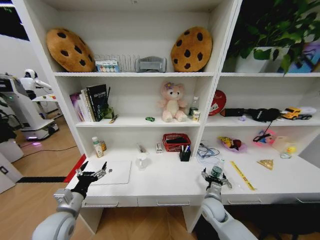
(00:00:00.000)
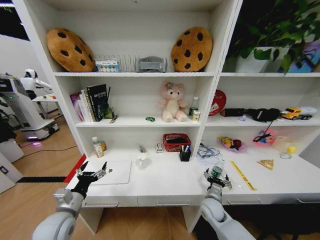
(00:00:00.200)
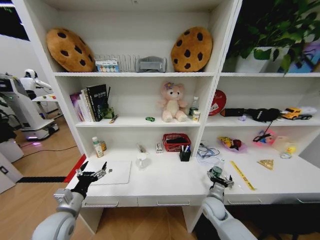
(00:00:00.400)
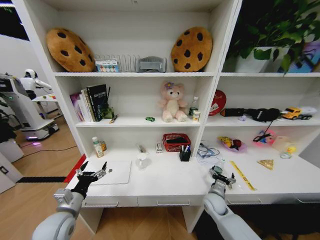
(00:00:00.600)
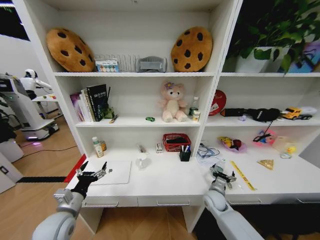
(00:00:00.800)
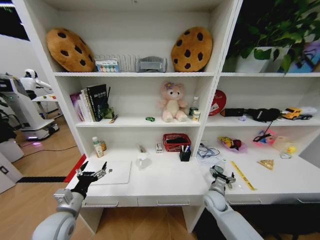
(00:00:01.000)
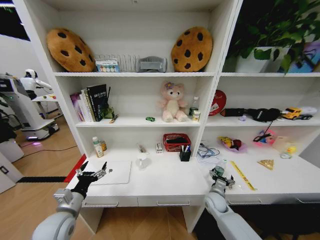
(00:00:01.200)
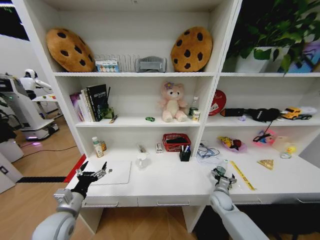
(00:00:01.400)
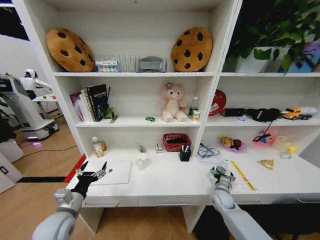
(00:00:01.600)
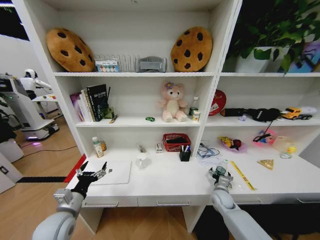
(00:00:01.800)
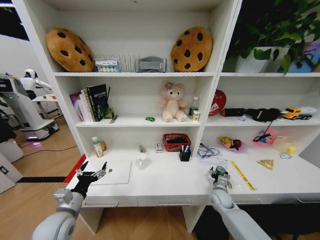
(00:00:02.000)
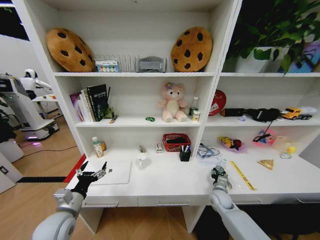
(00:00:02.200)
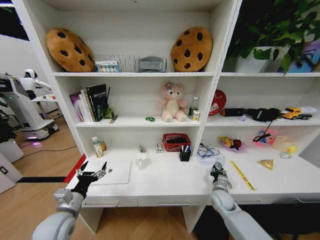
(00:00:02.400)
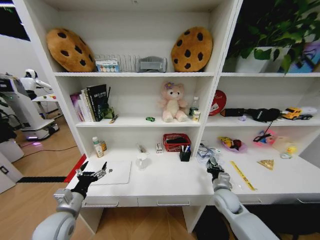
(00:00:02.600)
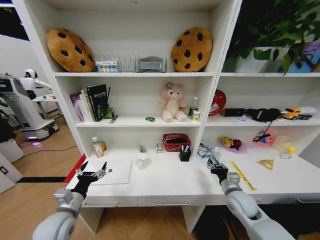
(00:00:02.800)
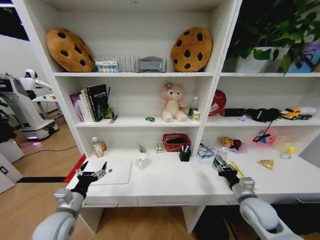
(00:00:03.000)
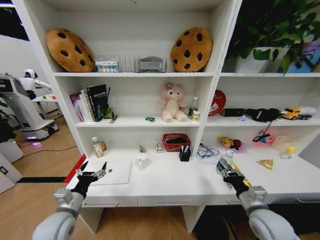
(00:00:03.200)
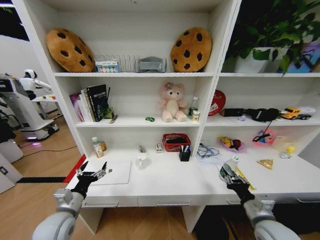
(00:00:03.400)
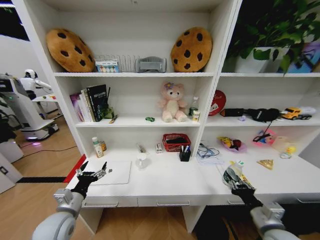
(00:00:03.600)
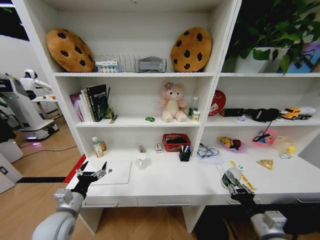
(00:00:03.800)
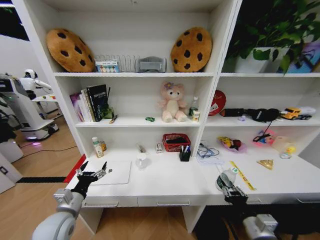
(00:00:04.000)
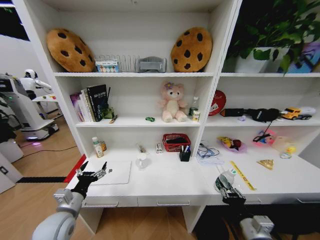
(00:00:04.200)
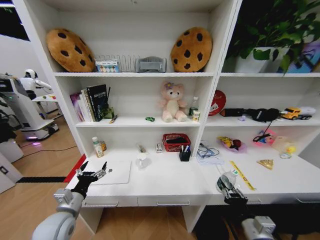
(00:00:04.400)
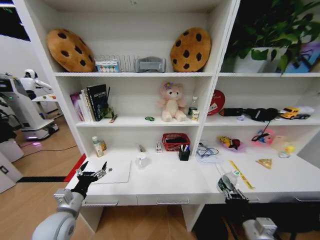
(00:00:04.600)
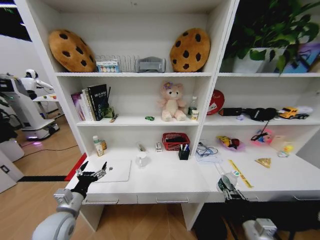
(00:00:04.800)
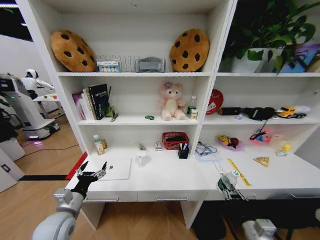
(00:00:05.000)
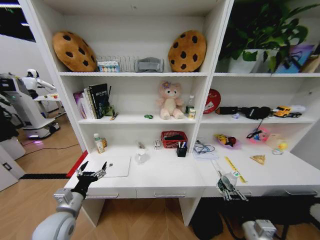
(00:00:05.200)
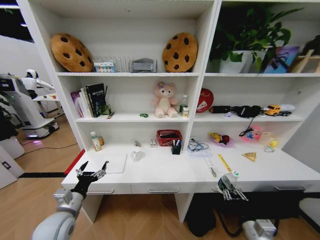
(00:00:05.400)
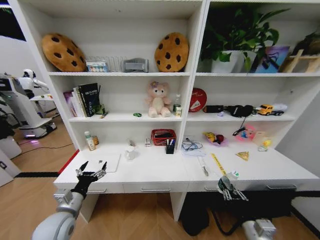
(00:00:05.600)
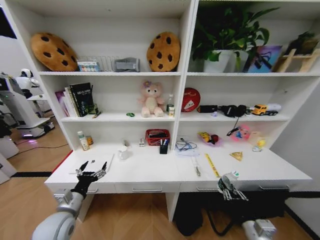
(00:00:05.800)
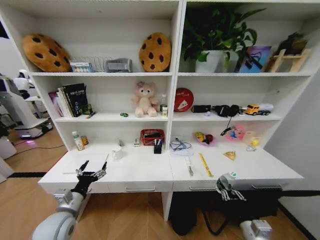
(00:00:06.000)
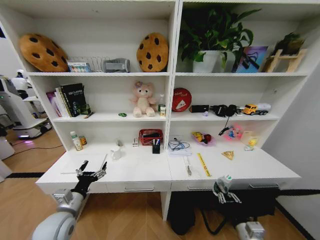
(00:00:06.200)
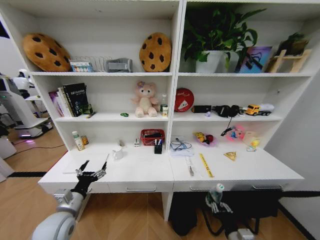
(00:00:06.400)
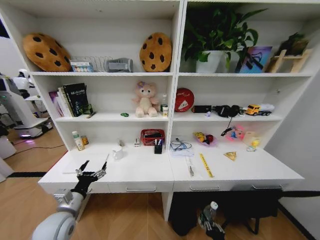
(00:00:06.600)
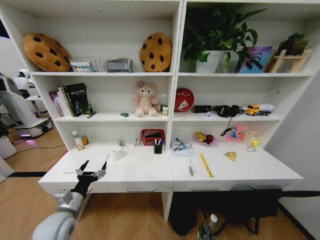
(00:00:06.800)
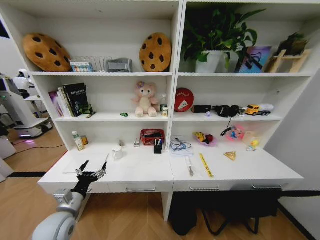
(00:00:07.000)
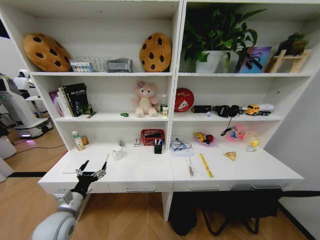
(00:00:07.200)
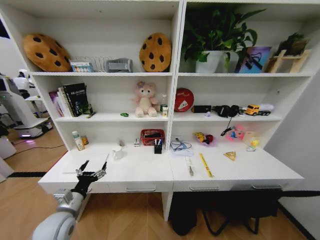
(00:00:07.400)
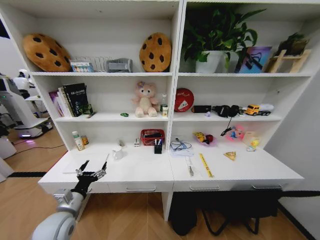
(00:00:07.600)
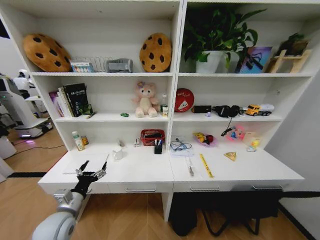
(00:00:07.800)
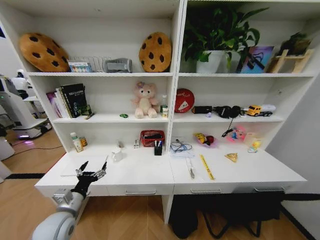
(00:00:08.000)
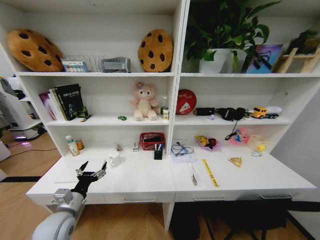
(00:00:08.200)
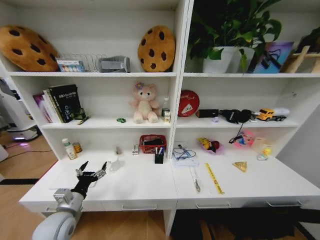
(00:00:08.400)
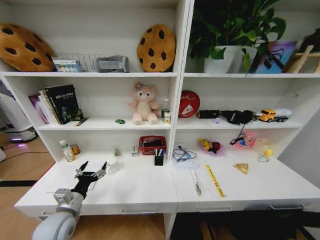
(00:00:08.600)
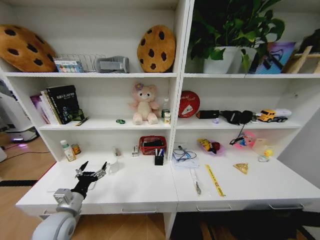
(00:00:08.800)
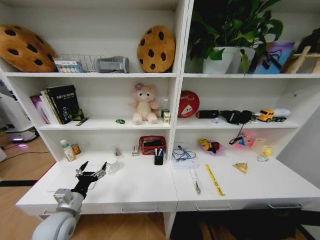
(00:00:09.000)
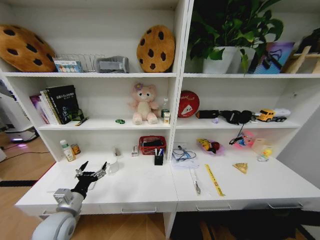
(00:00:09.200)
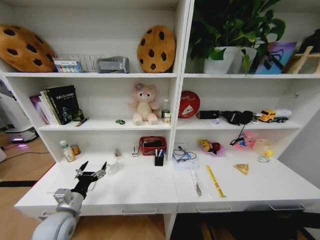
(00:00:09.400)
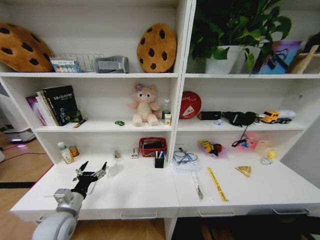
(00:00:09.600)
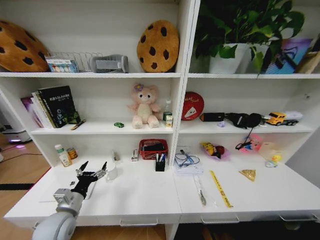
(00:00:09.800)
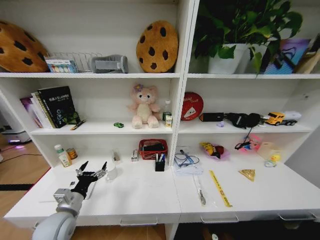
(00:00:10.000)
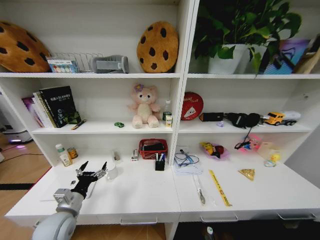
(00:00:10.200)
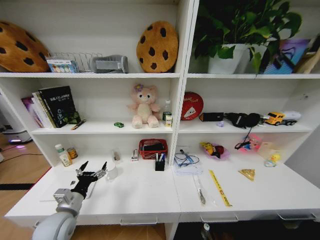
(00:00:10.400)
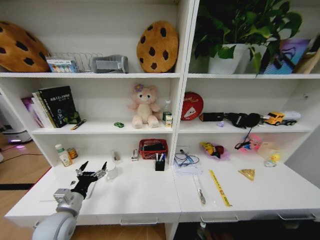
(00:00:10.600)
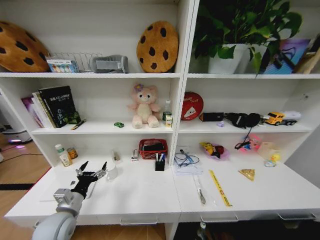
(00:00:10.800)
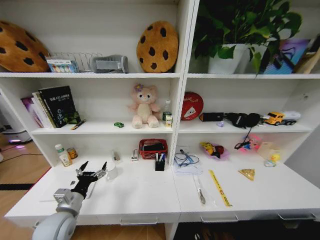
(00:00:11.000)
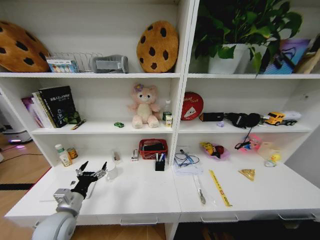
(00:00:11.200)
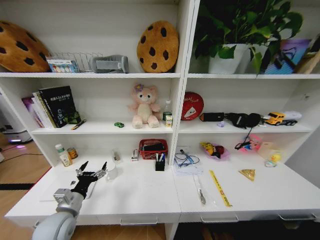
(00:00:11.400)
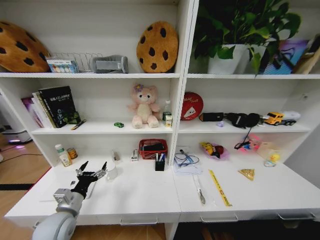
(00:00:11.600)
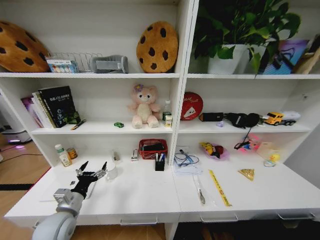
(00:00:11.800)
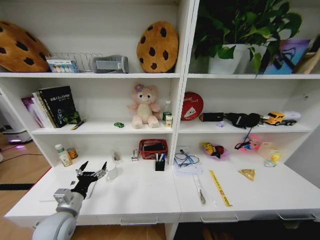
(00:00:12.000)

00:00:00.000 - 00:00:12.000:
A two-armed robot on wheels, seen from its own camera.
Task of the whole recording: Organize the objects on the table.
00:00:00.000 - 00:00:01.600: The right gripper moves to the right and forward, some 10 cm.
00:00:01.600 - 00:00:03.000: The right gripper is displaced upward and backward by roughly 15 cm, and closes its fingers.
00:00:03.000 - 00:00:04.400: The right gripper goes approximately 15 cm backward.
00:00:06.000 - 00:00:07.600: The right gripper moves downward and backward, roughly 30 cm.
00:00:09.000 - 00:00:10.400: The right gripper shifts some 10 cm forward and downward.

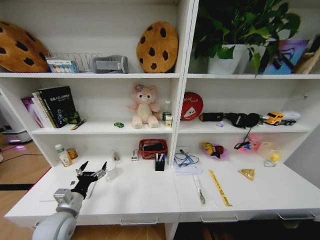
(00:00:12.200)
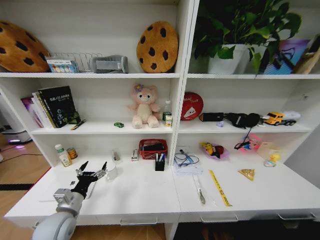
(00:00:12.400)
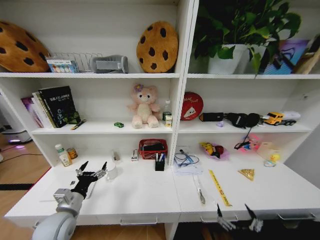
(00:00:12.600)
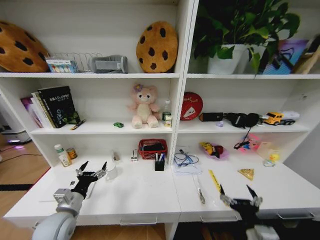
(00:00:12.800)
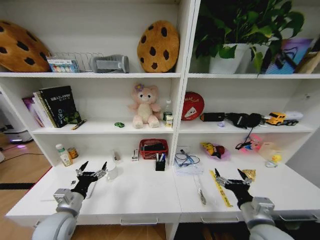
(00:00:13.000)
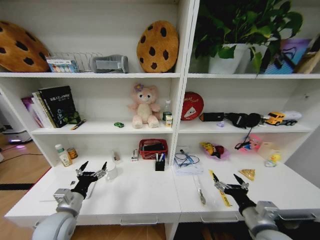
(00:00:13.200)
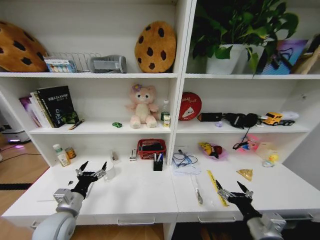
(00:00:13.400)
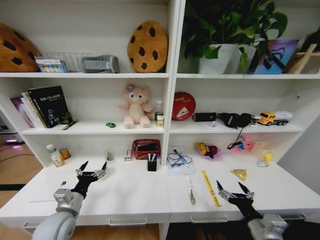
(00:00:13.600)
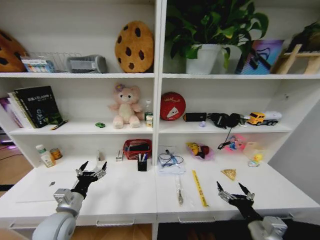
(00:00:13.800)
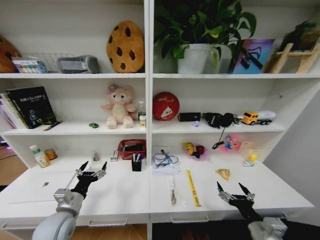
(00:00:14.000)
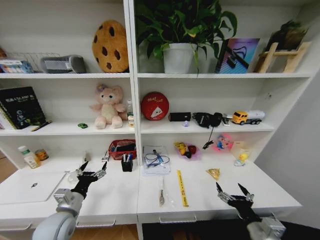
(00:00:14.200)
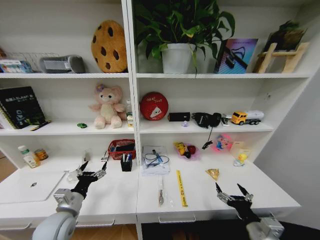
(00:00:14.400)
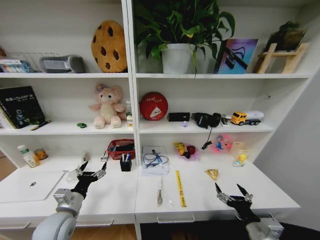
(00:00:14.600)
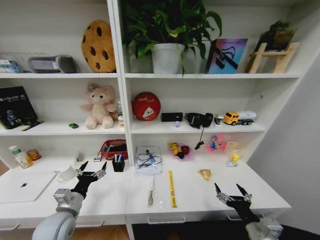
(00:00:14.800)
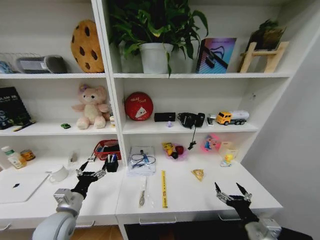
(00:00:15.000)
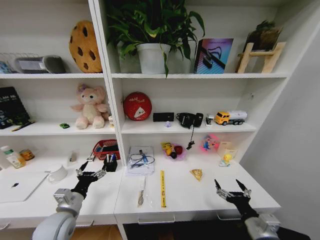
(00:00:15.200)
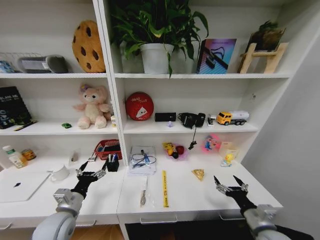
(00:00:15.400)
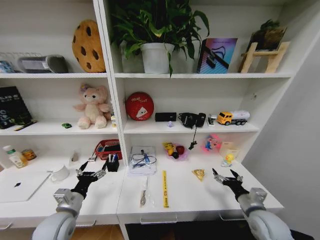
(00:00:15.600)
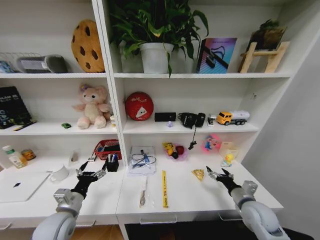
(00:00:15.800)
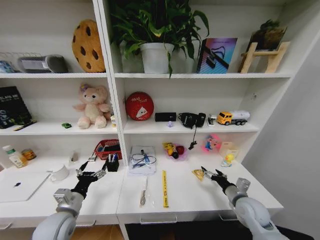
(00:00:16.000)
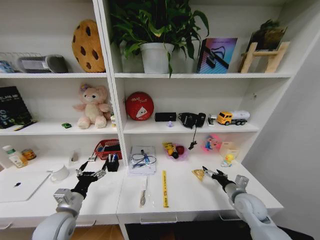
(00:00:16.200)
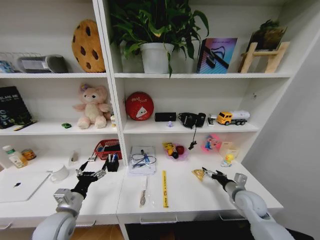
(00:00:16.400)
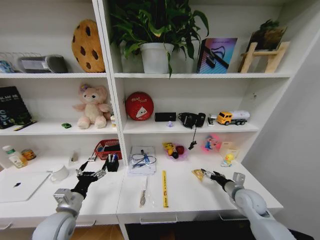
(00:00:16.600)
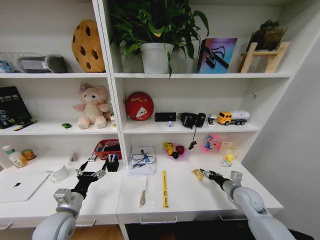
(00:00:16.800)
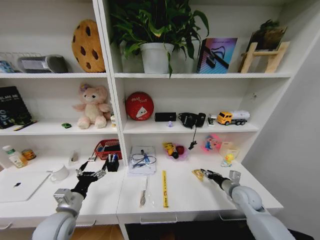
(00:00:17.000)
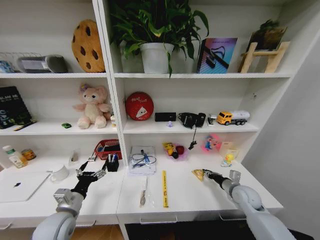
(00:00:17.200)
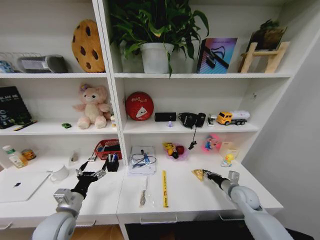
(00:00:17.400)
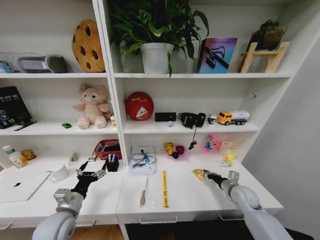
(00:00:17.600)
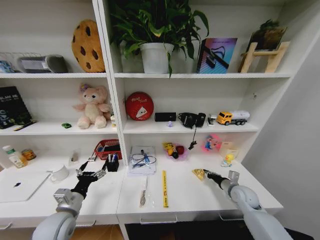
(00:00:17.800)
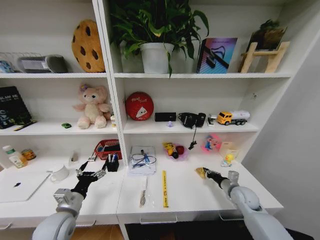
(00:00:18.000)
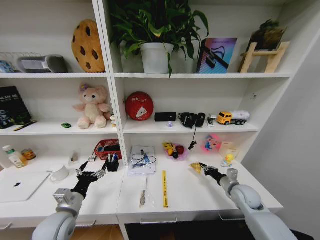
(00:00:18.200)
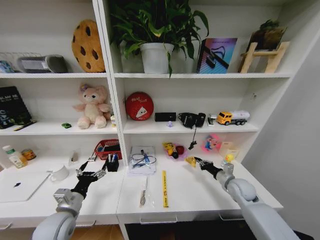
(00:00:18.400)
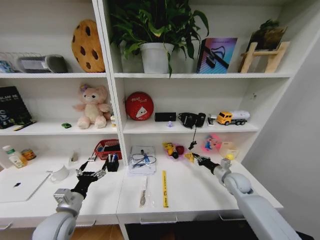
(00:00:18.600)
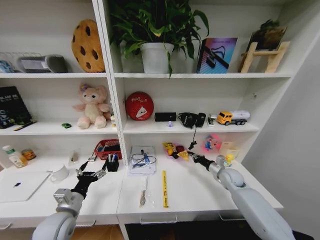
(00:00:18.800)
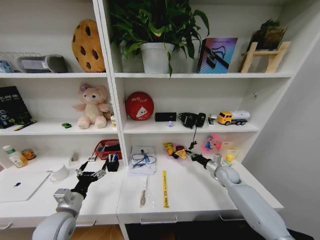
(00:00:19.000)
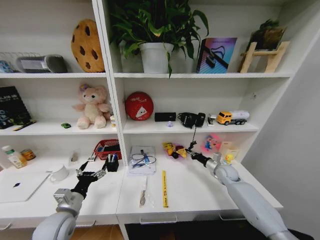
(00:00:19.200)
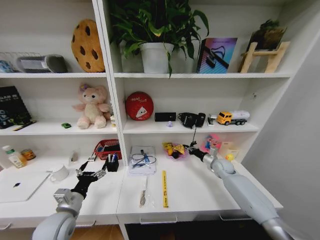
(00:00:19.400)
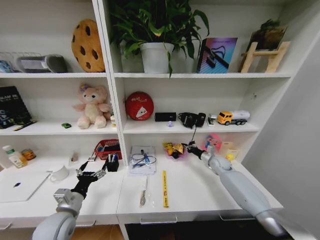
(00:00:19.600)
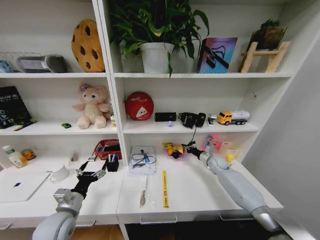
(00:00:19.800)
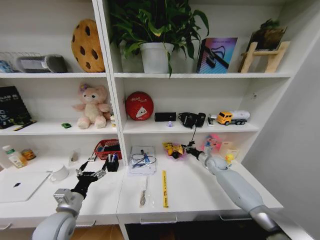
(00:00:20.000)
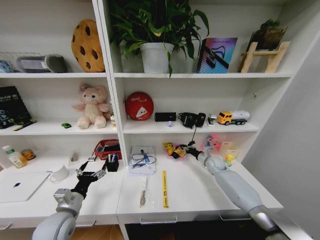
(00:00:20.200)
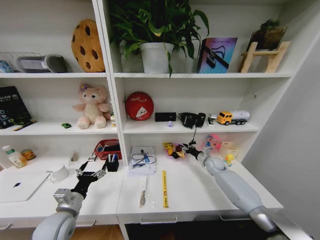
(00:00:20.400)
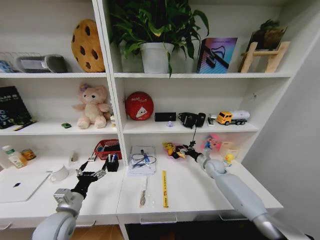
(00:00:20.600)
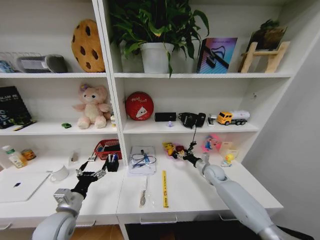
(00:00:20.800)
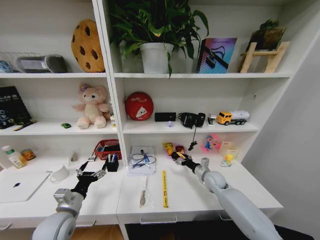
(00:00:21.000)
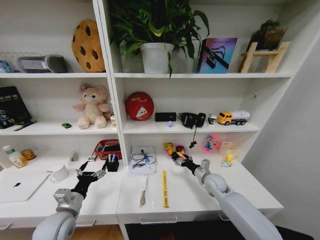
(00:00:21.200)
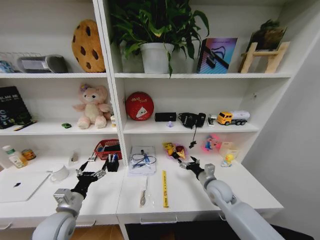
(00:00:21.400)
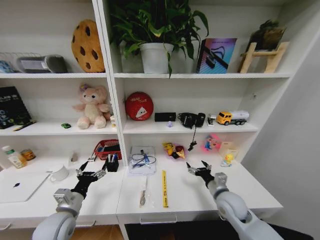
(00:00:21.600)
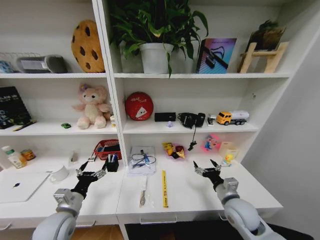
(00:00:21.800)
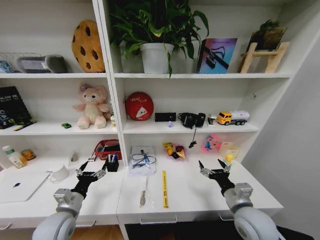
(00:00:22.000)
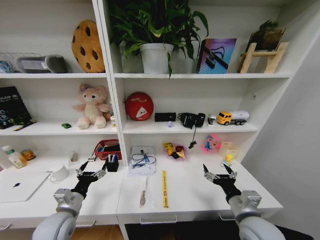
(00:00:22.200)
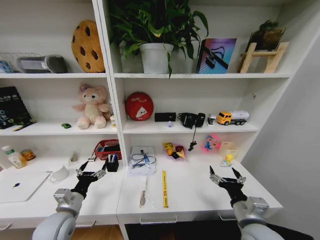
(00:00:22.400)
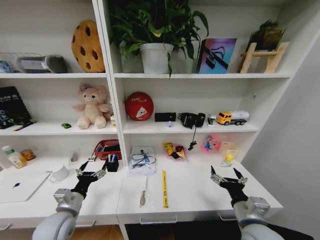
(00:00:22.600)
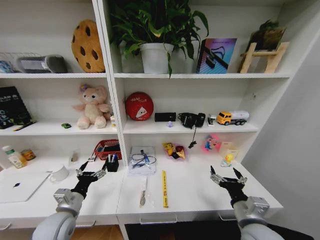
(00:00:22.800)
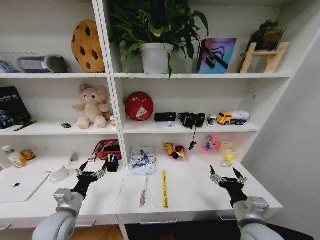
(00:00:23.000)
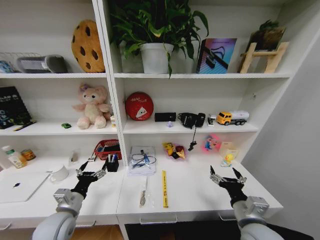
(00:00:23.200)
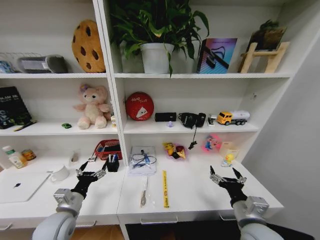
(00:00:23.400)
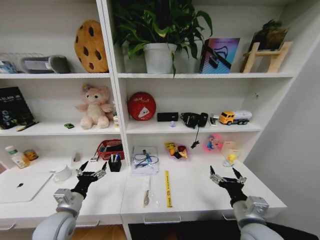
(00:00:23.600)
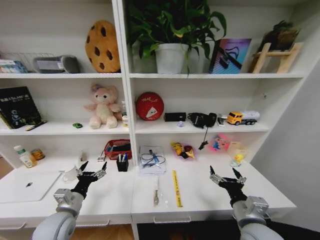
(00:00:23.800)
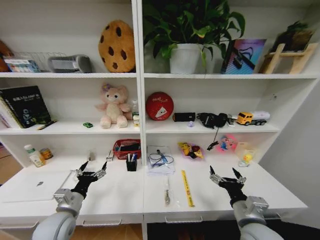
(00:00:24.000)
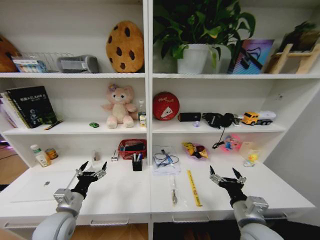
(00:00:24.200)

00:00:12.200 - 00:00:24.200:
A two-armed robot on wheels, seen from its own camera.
Task of the whole recording: Organize the objects on the table.
00:00:12.200 - 00:00:13.800: The right gripper is displaced forward, upward and to the right by about 25 cm.
00:00:15.200 - 00:00:16.600: The right gripper is displaced forward by approximately 15 cm.
00:00:16.600 - 00:00:18.200: The right gripper closes its fingers.
00:00:18.200 - 00:00:19.800: The right gripper travels forward by some 20 cm.
00:00:19.800 - 00:00:21.200: The right gripper heads backward and to the left, covering roughly 15 cm, and opens.
00:00:21.200 - 00:00:22.600: The right gripper goes some 25 cm backward and upward.
